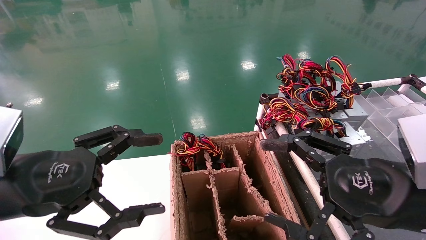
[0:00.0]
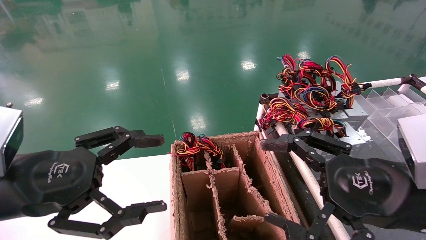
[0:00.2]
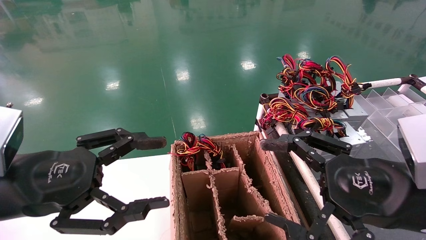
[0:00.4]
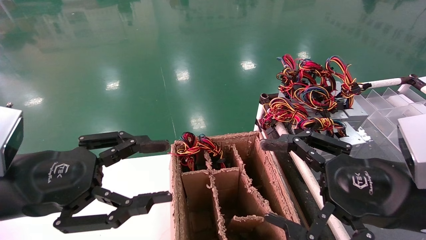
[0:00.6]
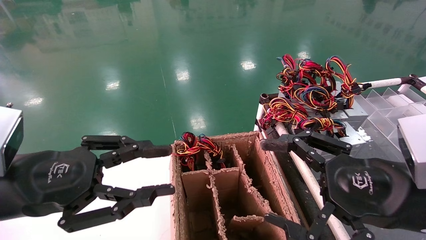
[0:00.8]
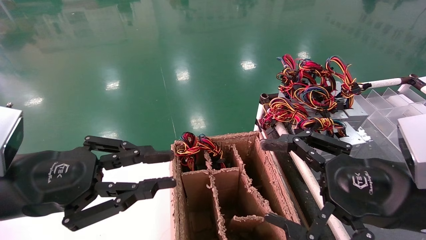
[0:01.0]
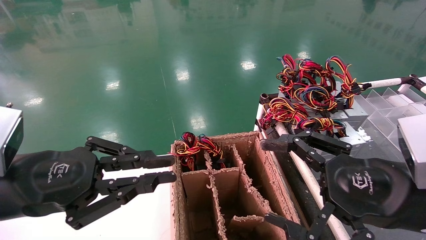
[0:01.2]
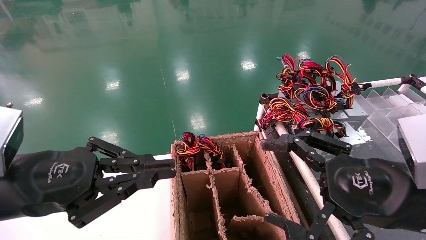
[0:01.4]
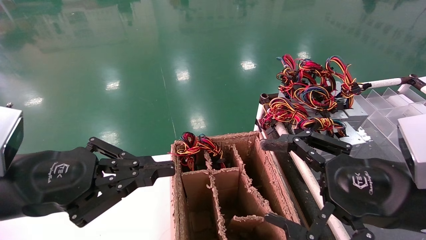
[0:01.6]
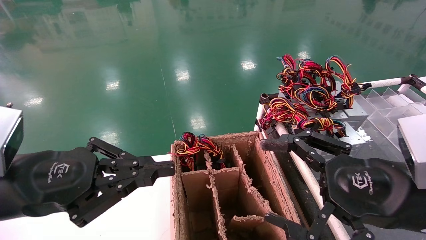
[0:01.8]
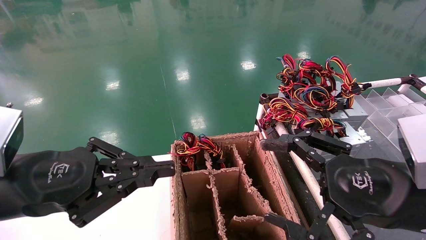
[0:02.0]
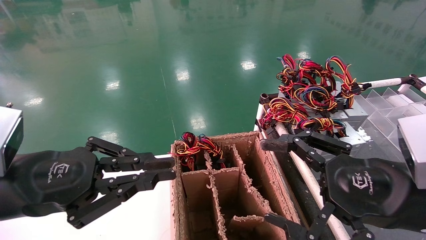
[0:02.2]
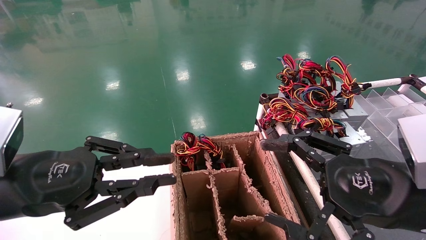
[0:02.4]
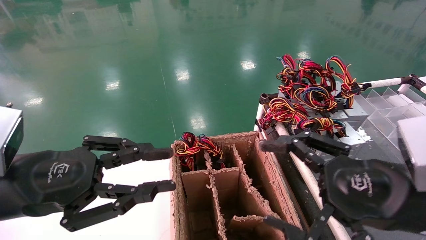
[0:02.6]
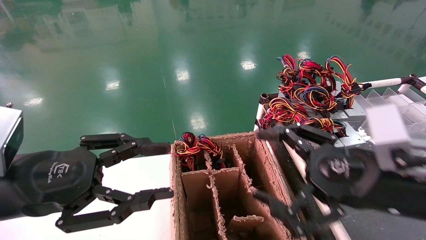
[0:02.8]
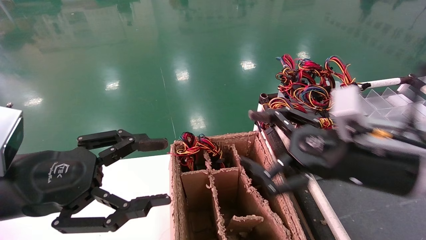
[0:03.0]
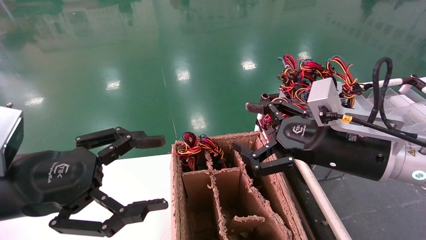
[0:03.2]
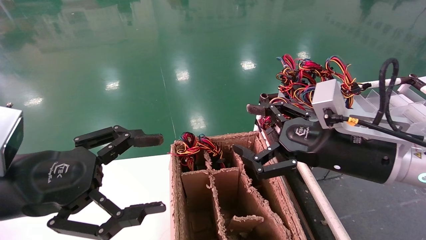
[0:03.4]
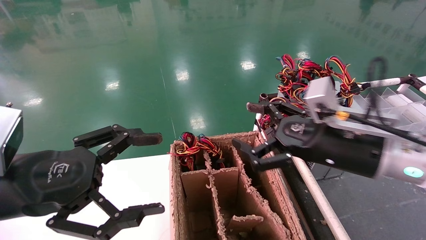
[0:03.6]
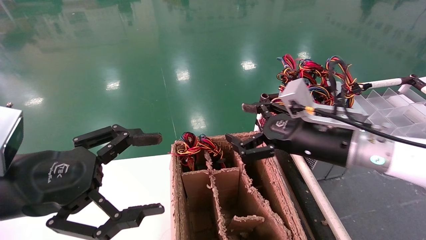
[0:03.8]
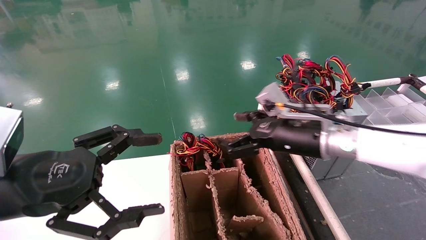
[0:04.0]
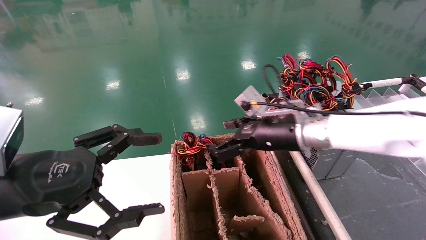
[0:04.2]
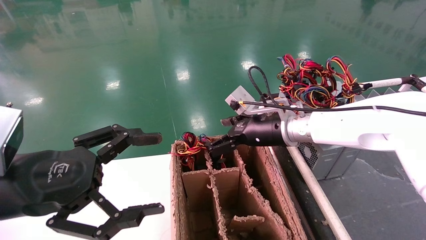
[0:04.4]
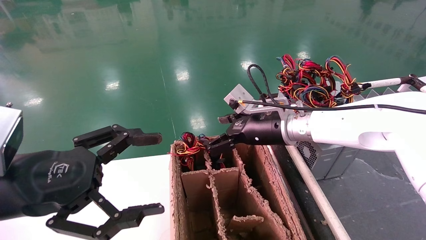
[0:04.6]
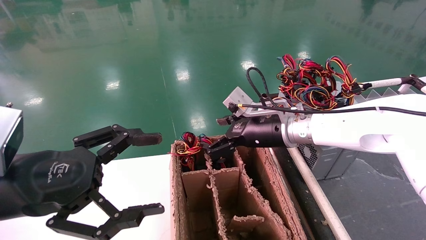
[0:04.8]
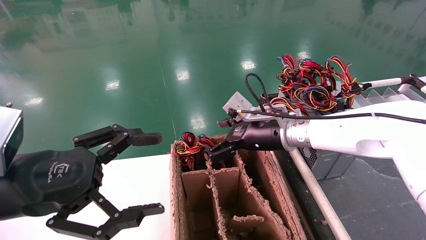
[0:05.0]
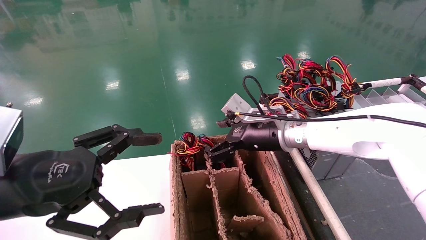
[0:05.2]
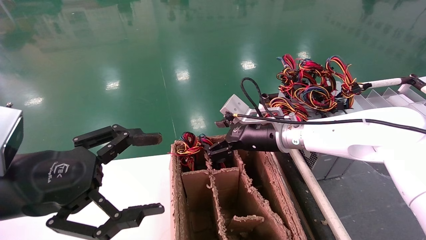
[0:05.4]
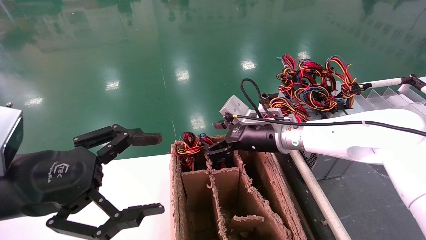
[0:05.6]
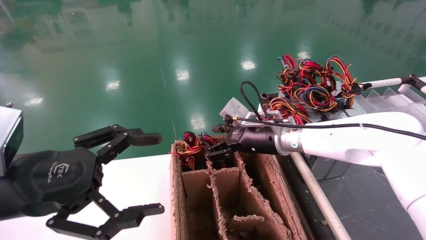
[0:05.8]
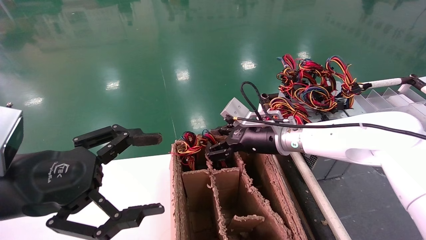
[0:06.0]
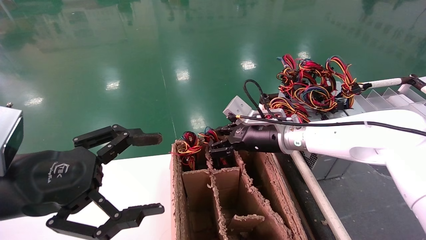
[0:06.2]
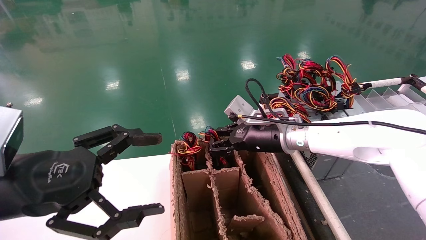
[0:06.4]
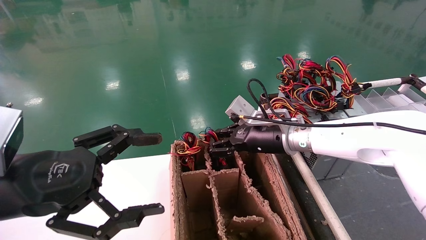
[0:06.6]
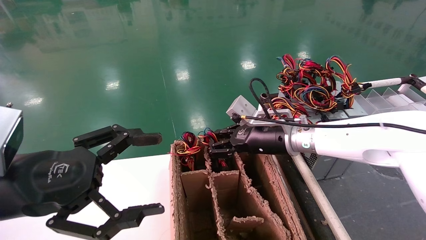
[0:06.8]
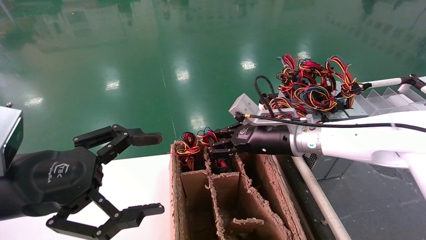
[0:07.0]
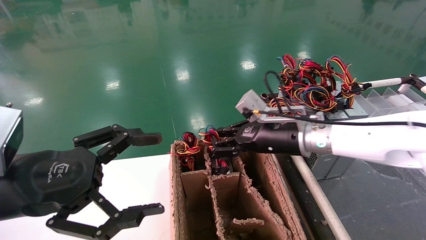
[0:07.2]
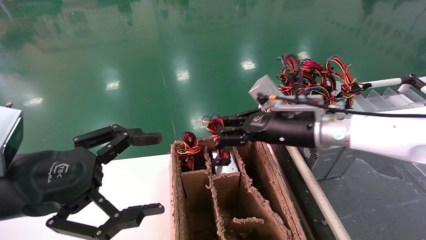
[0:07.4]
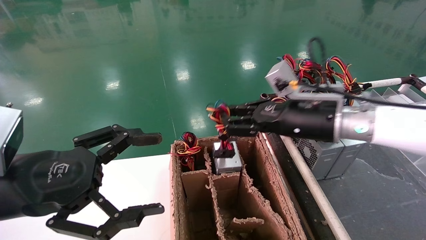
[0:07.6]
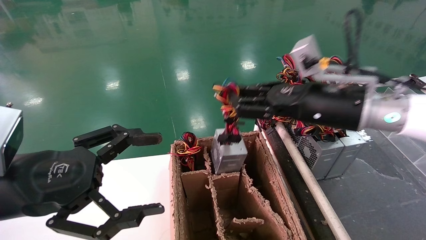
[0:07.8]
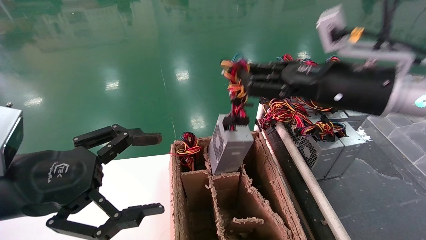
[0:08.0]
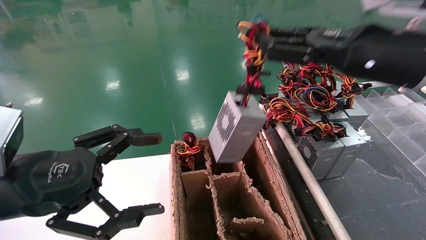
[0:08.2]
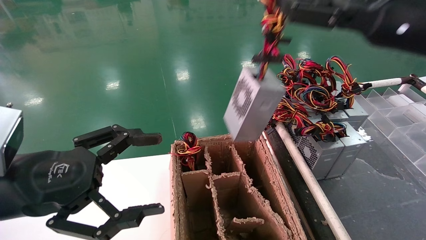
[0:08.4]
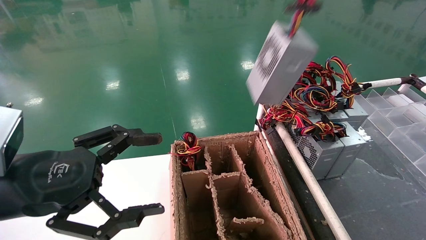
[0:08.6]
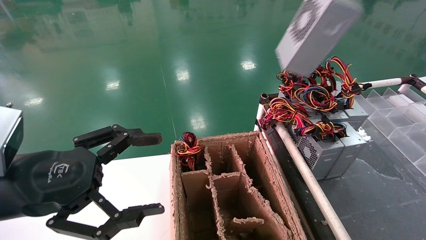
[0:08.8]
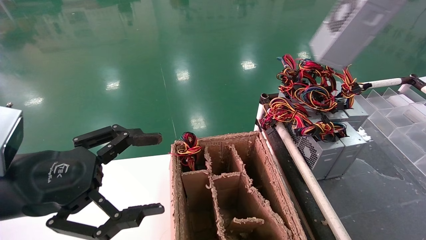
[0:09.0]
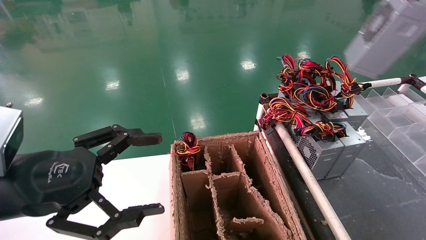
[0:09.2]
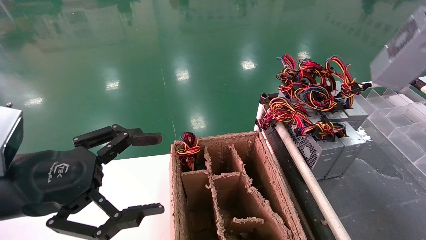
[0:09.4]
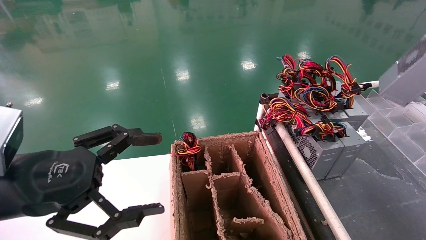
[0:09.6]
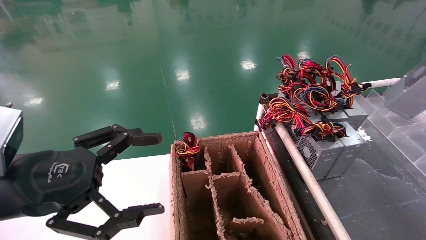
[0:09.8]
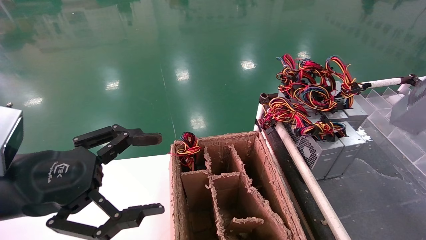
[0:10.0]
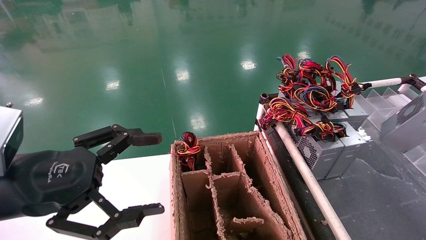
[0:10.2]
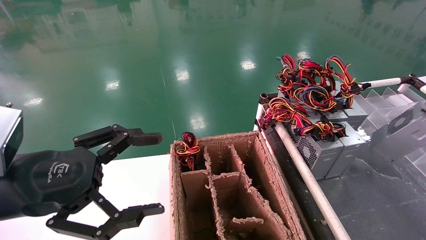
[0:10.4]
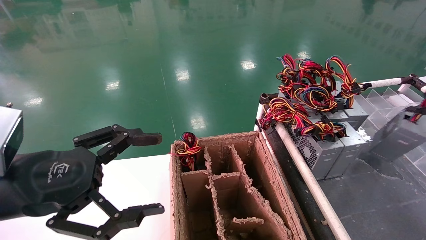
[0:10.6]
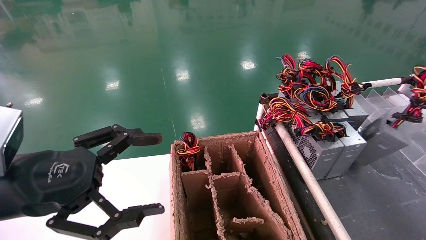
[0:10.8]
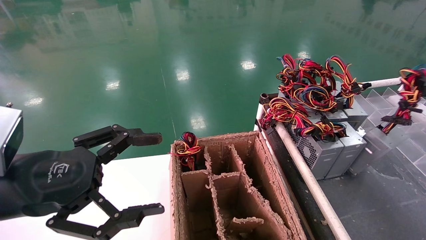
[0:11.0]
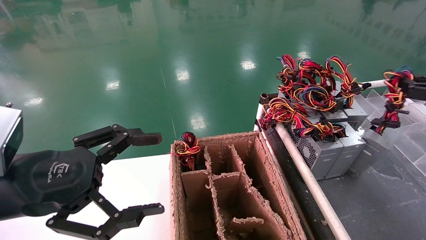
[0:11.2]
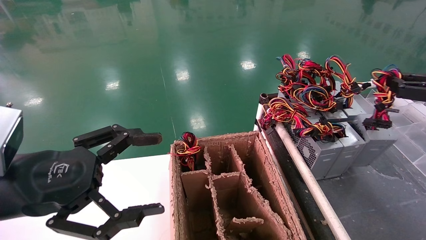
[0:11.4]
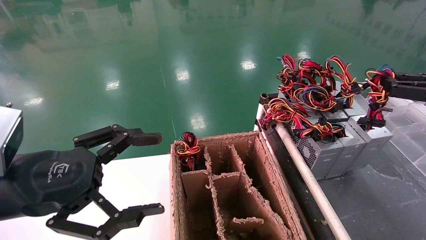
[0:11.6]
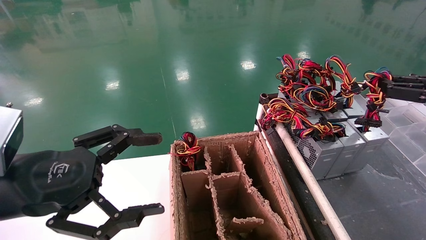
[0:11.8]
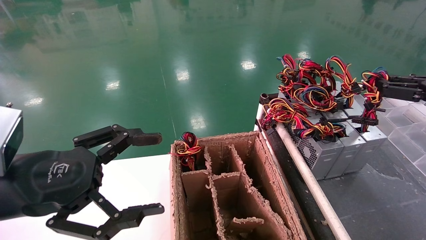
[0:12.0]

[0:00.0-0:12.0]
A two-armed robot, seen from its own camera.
Step, 0:01.4 to 0:06.6: Grab and lift the power supply from the large box.
0:00.0 to 0:01.6: The left gripper closes.
0:01.6 to 0:03.0: The right gripper goes roughly 5 cm forward, while the left gripper opens.
0:03.0 to 0:04.4: The left gripper opens. Meanwhile the right gripper moves forward and to the left, some 20 cm.
0:04.4 to 0:06.0: The right gripper closes.
0:06.0 to 0:07.6: The right gripper goes about 10 cm backward, upward and to the right, and closes up.
0:07.6 to 0:09.0: The right gripper heads to the right, upward and backward, covering some 35 cm.
0:09.0 to 0:10.4: The right gripper is displaced downward and to the right by about 20 cm.
0:10.4 to 0:12.0: The right gripper travels to the left by approximately 10 cm.

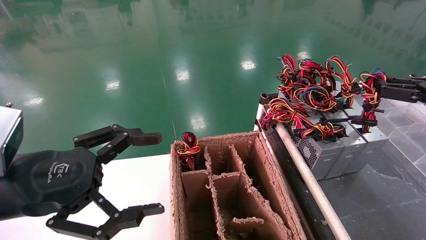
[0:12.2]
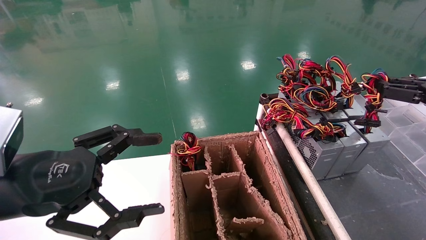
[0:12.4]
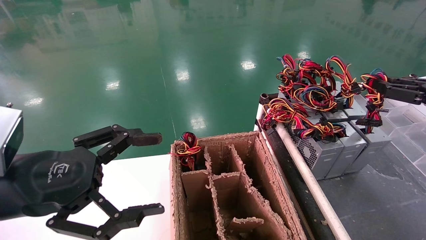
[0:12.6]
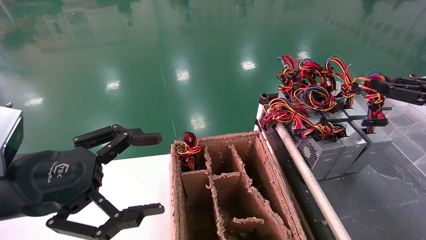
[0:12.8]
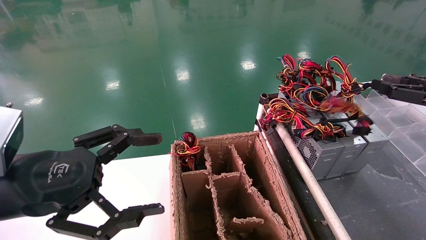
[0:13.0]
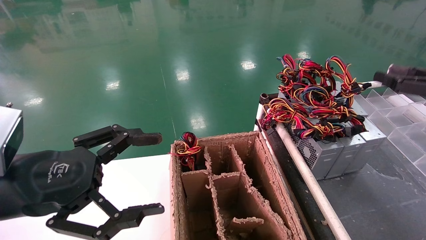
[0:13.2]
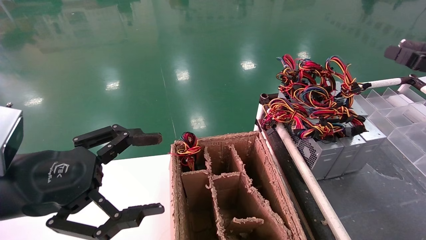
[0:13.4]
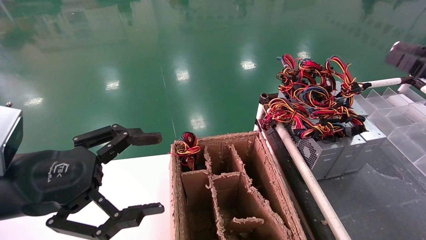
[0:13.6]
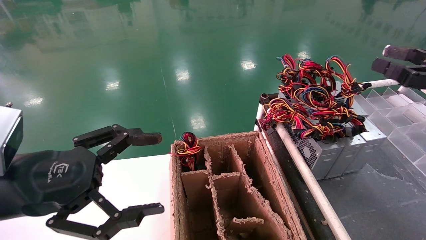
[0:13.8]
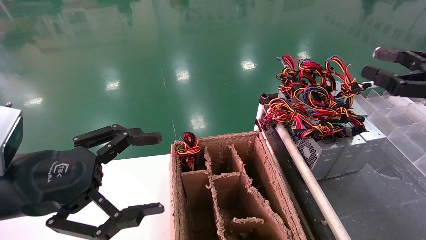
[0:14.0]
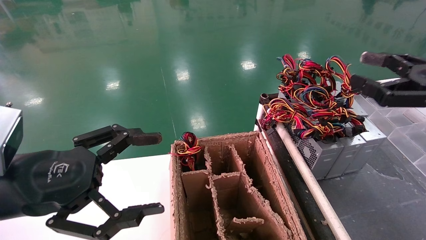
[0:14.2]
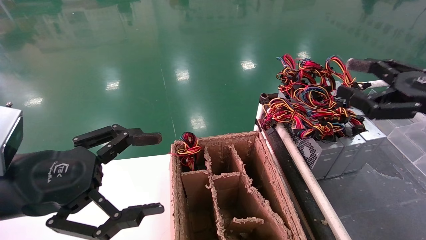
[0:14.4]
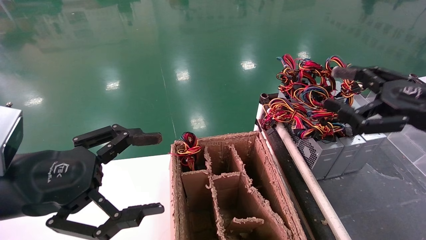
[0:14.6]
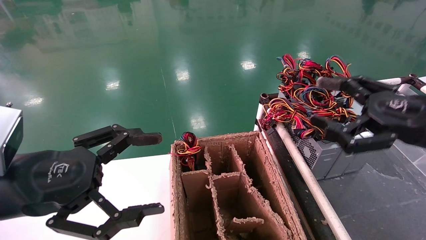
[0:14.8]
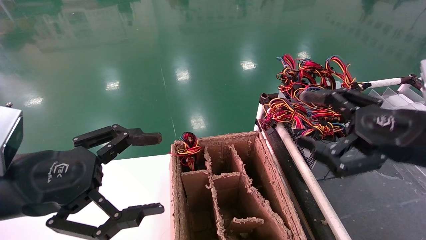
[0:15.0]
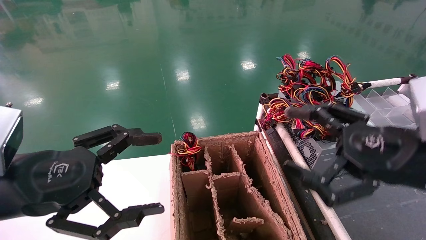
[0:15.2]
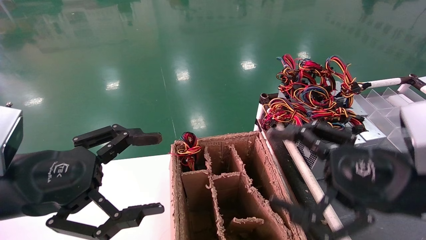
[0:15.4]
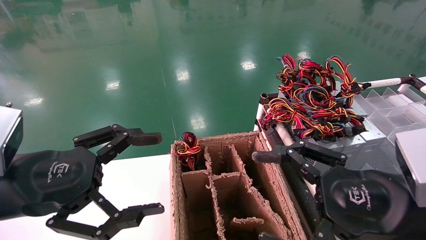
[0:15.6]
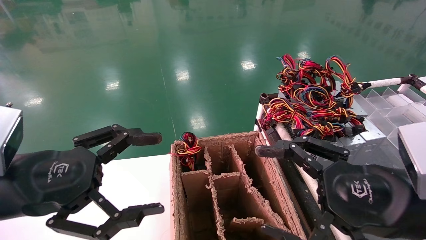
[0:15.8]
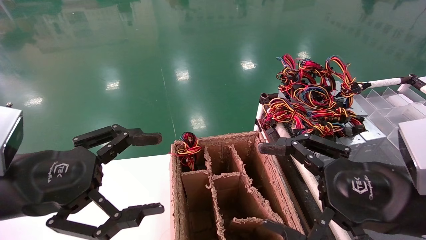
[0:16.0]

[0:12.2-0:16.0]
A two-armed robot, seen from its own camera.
0:12.2 to 0:13.4: The right gripper opens up.
0:13.4 to 0:14.8: The right gripper is displaced to the left by approximately 15 cm, and opens.
0:14.8 to 0:16.0: The right gripper shifts about 10 cm to the left, backward and downward.

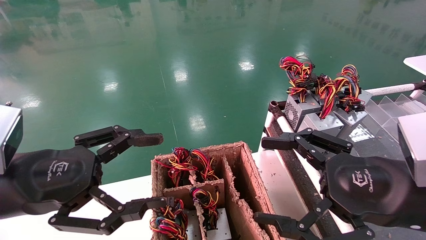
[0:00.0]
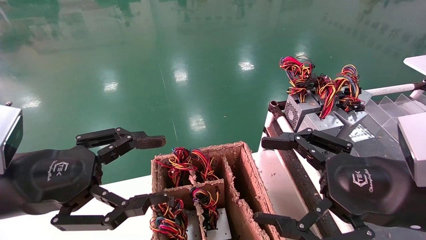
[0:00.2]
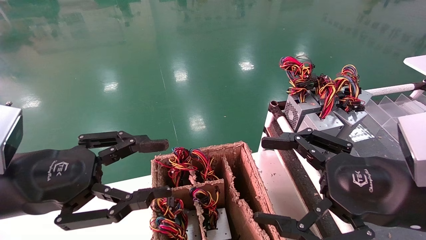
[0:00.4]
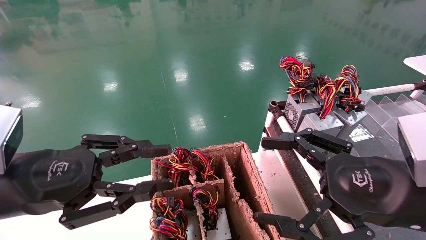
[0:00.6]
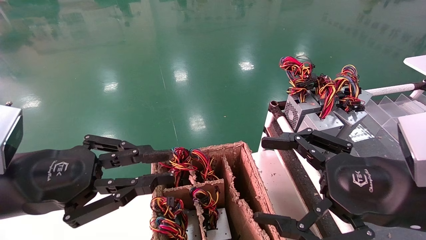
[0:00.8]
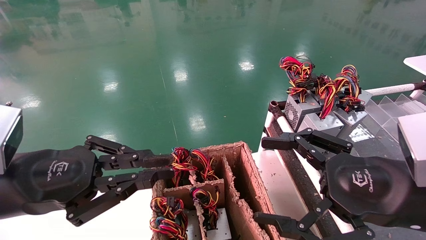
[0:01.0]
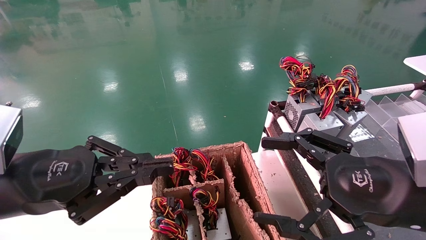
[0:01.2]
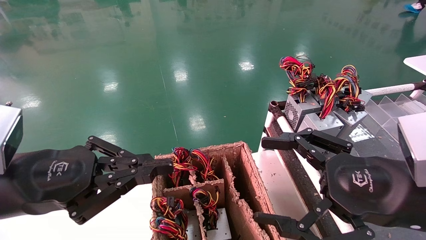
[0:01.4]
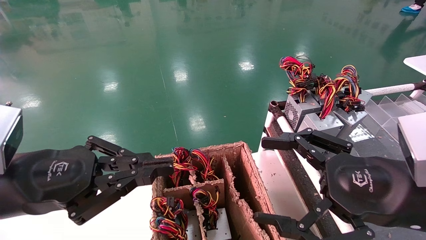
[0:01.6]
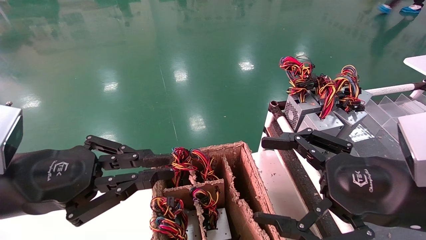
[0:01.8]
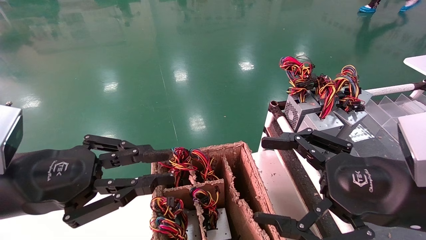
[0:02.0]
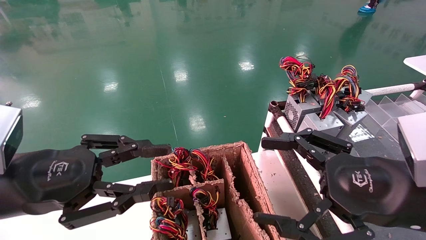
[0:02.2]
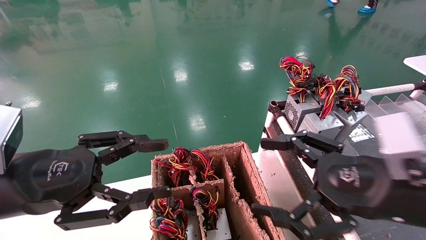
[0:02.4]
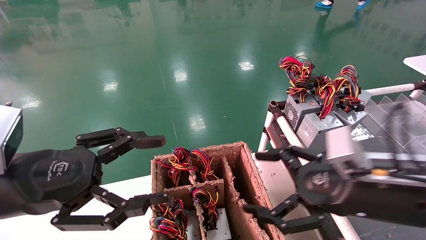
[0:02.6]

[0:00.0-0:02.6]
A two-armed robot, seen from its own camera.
0:00.0 to 0:01.2: The left gripper closes its fingers.
0:01.2 to 0:02.6: The left gripper opens, while the right gripper travels forward by some 5 cm.
